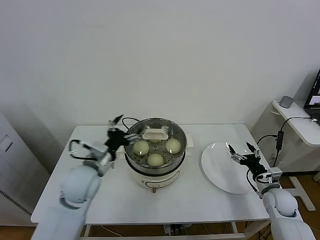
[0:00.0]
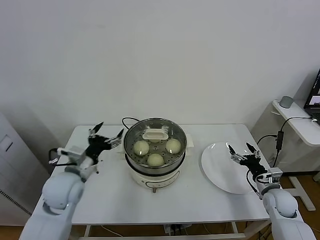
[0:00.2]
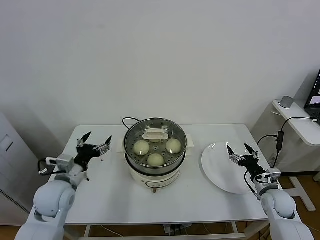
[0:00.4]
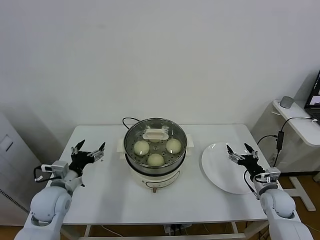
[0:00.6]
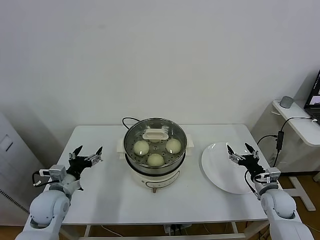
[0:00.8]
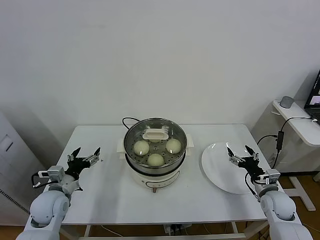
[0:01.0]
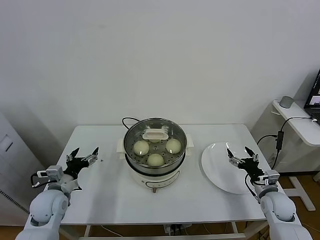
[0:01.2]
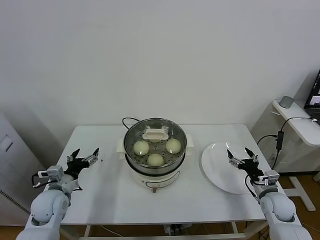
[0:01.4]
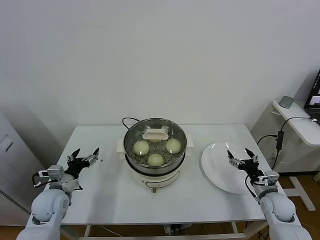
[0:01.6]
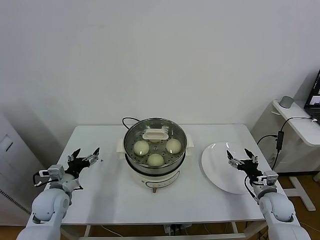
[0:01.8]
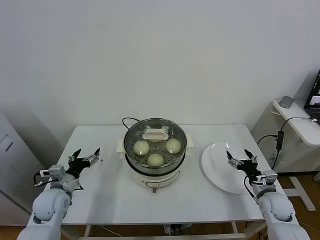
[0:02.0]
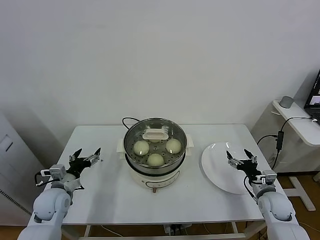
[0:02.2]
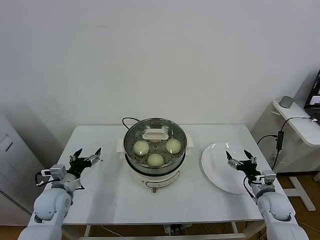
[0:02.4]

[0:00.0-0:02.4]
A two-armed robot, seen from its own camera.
Task of the whole recording: take steamed baozi put them in steamer.
0:00.0 to 0:01.2: The left gripper heads to the left and downward, covering roughly 15 cm.
0:01.2 to 0:02.4: The grippers move only a little.
